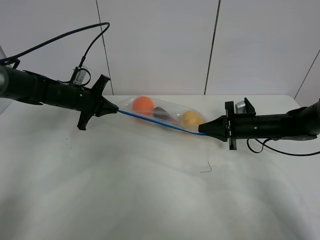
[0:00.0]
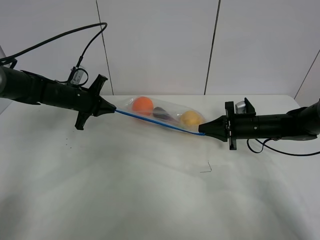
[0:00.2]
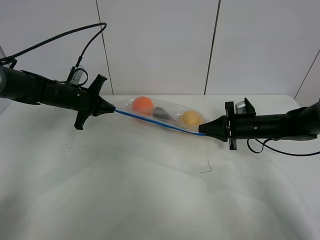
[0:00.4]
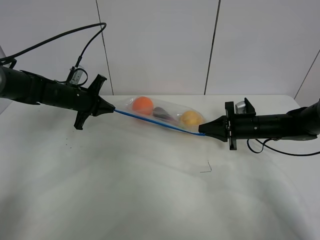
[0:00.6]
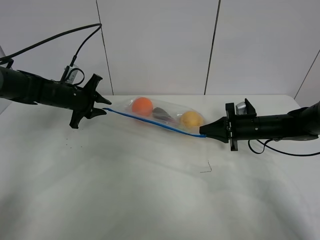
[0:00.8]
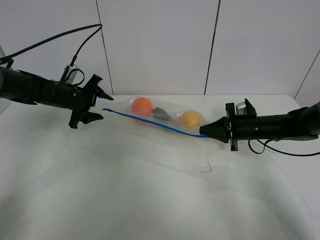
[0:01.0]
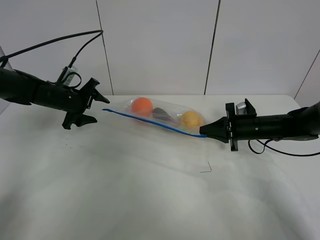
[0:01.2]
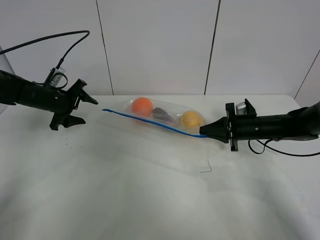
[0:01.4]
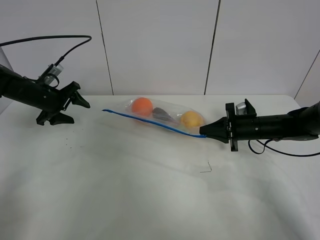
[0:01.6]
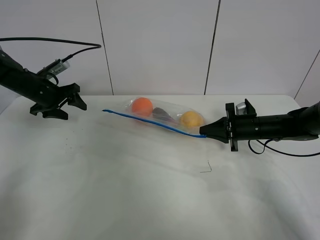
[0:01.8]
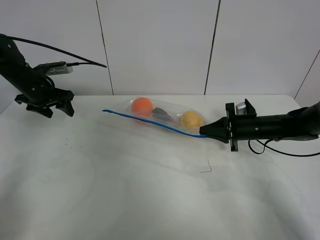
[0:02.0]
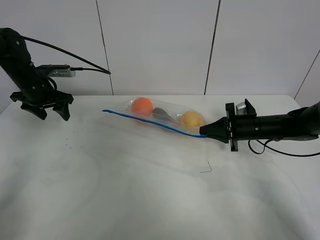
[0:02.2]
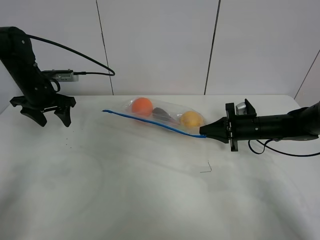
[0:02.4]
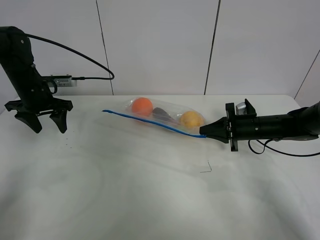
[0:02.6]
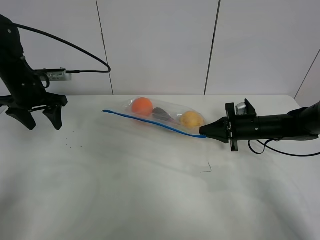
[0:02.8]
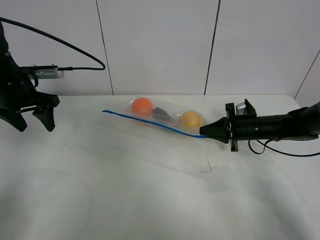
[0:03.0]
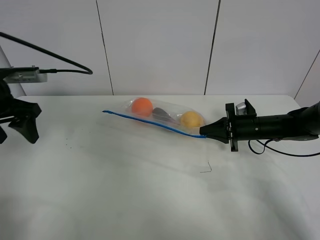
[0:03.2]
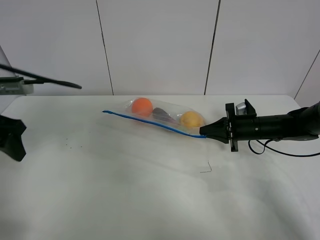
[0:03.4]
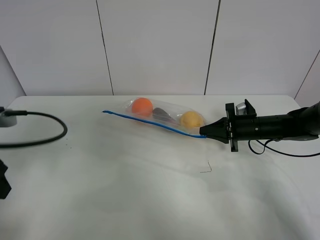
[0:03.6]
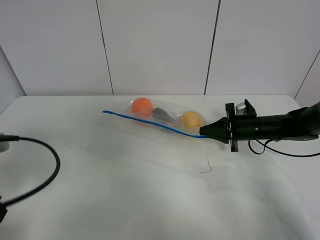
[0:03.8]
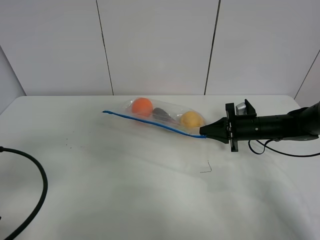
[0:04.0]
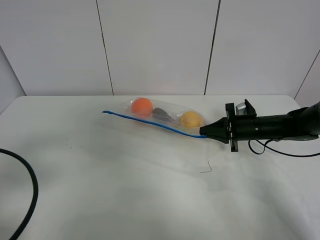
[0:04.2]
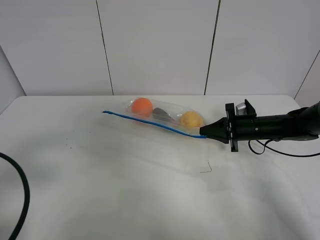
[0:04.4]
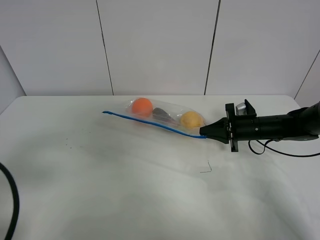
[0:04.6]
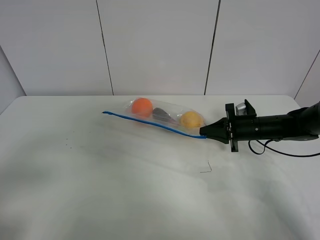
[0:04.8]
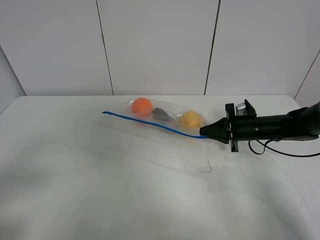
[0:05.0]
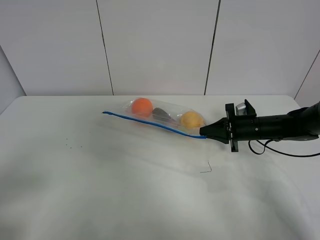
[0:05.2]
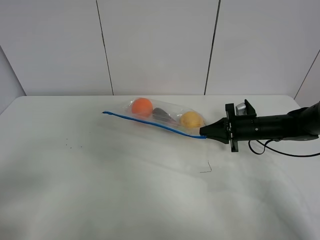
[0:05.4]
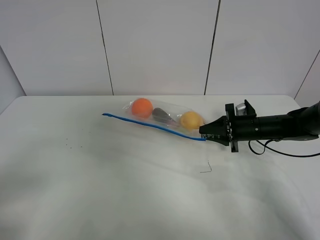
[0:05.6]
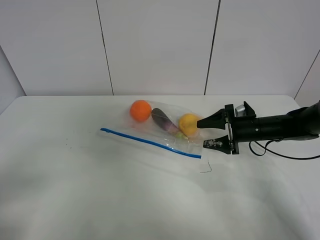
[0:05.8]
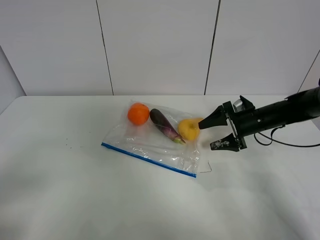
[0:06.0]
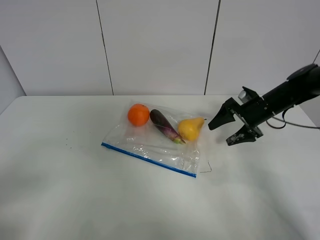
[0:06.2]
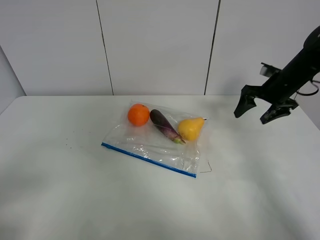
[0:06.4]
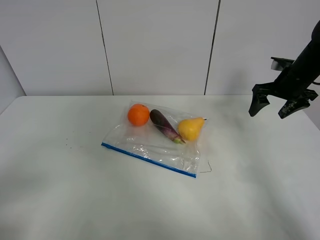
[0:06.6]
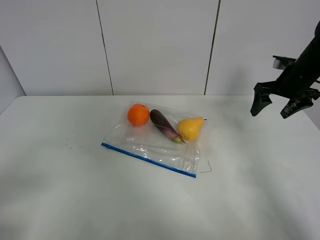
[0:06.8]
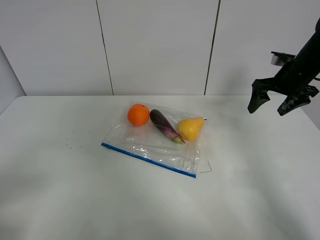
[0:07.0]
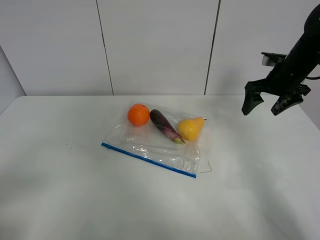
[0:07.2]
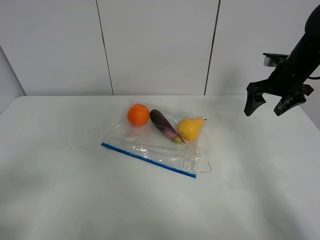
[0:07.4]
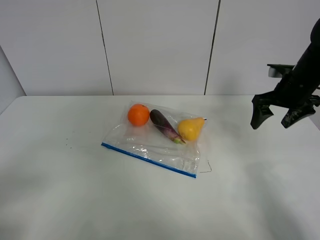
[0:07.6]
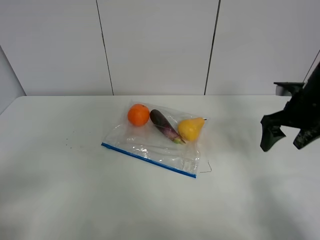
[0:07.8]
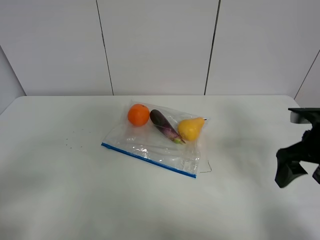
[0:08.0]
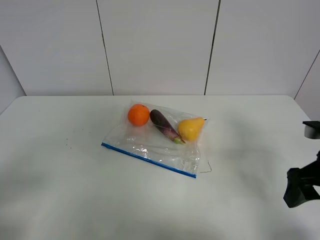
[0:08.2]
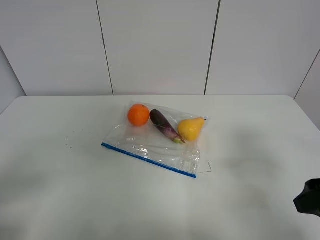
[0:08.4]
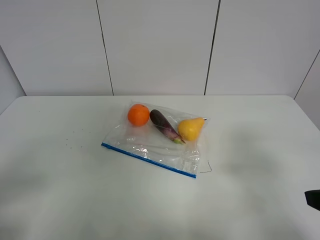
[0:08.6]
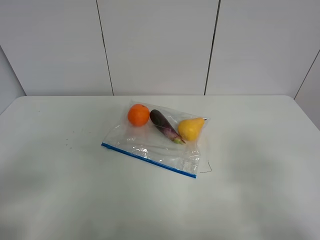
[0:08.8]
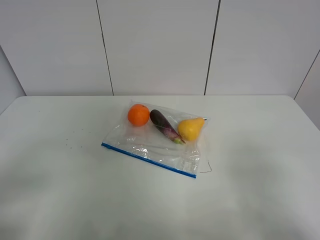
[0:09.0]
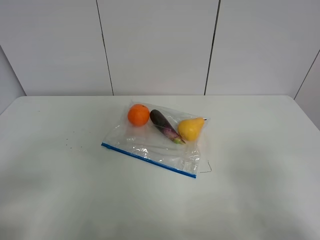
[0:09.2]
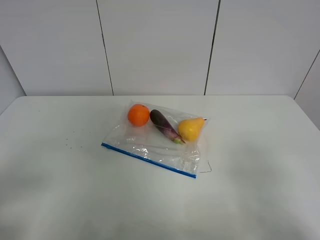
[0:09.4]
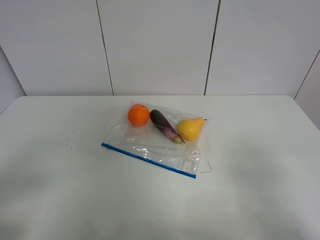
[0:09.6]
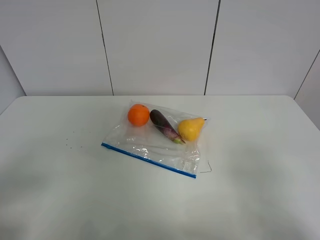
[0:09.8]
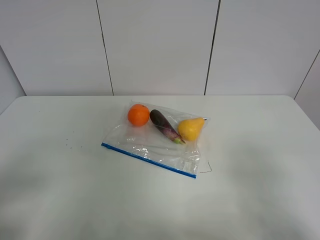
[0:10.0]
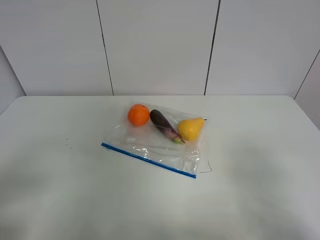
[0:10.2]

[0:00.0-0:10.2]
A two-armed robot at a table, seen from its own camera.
0:00.0 to 0:01.4: The left gripper heads to the left, covering approximately 5 cm, and opens its fingers.
0:01.4 to 0:03.0: The left gripper shifts approximately 10 cm upward and backward.
0:03.0 to 0:04.4: The left gripper moves backward, some 30 cm.
0:04.4 to 0:05.8: The right gripper opens its fingers. The left gripper heads backward, covering roughly 10 cm.
0:05.8 to 0:07.2: The right gripper moves upward, approximately 15 cm.
0:07.2 to 0:08.8: The right gripper goes some 35 cm backward.
